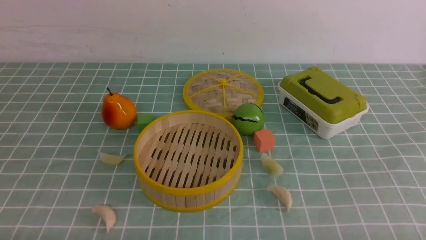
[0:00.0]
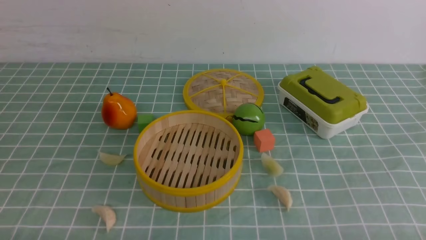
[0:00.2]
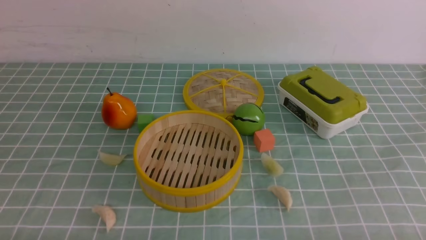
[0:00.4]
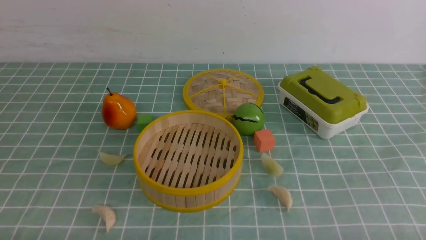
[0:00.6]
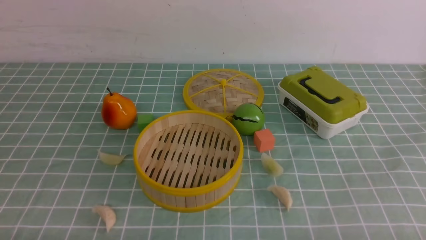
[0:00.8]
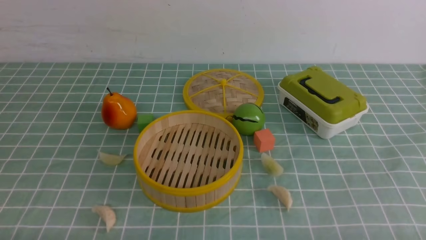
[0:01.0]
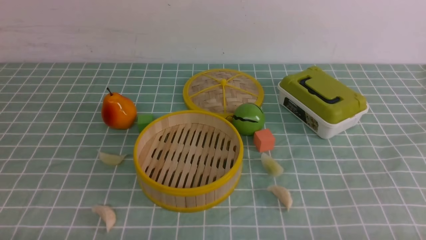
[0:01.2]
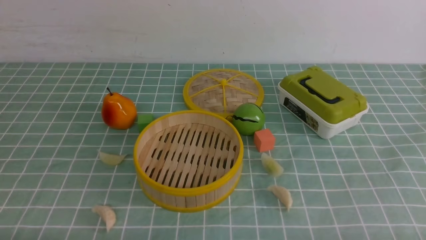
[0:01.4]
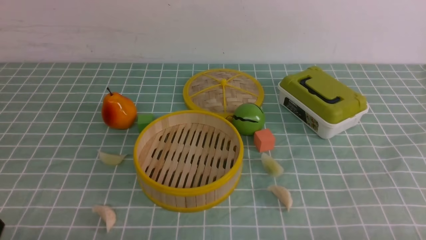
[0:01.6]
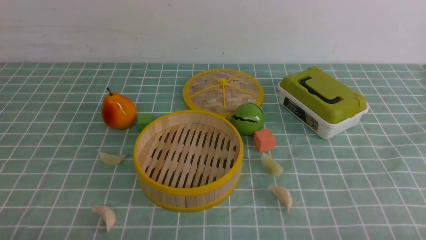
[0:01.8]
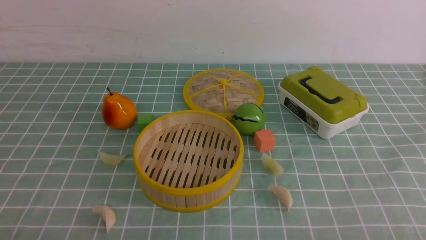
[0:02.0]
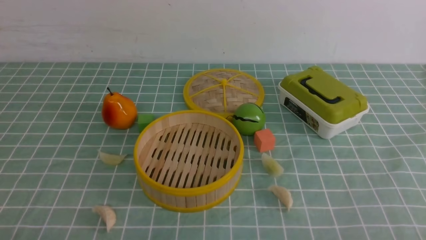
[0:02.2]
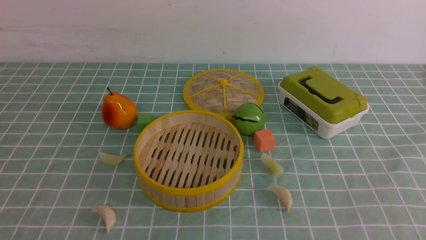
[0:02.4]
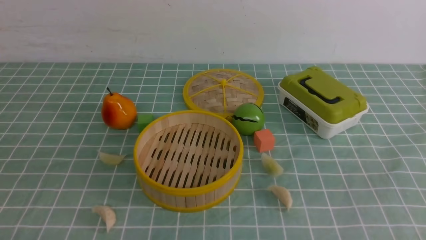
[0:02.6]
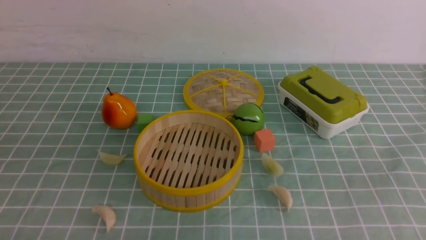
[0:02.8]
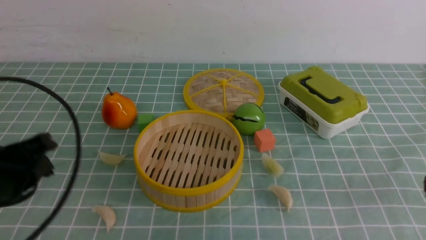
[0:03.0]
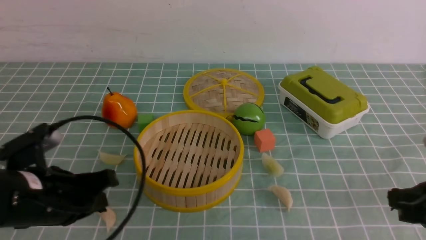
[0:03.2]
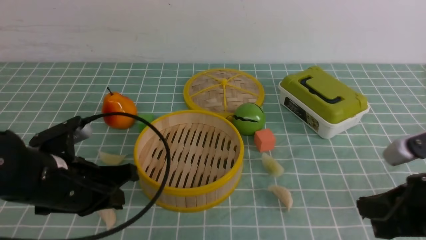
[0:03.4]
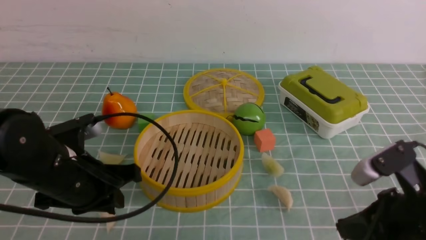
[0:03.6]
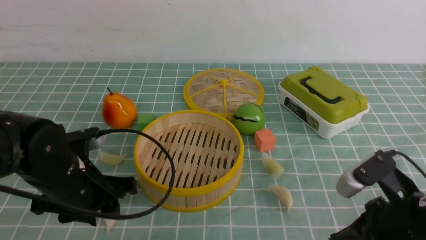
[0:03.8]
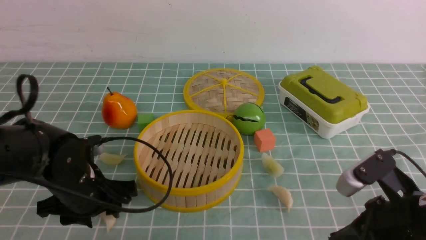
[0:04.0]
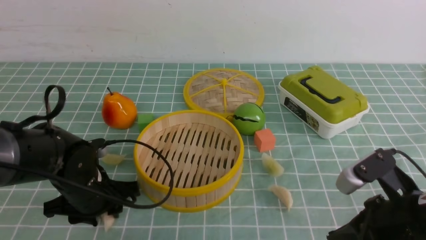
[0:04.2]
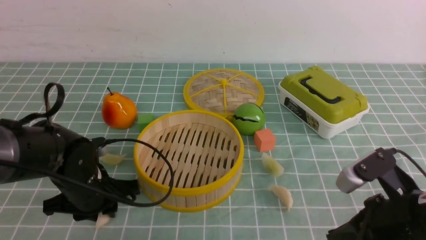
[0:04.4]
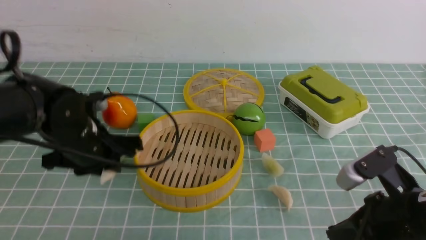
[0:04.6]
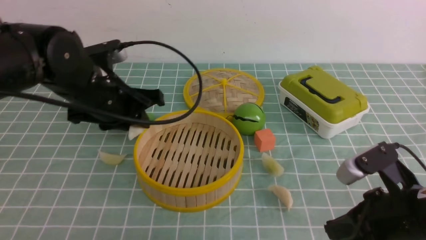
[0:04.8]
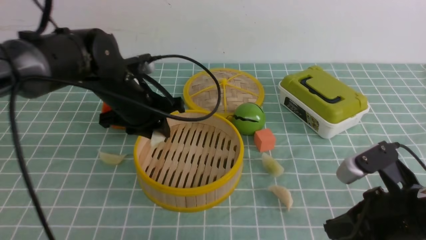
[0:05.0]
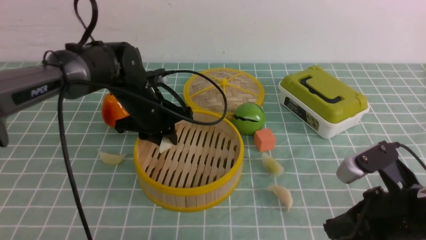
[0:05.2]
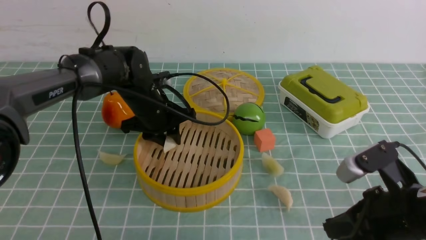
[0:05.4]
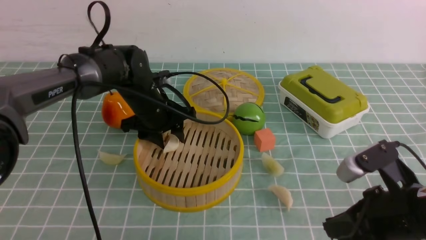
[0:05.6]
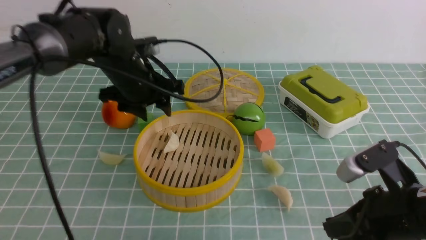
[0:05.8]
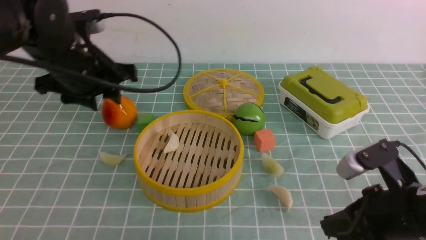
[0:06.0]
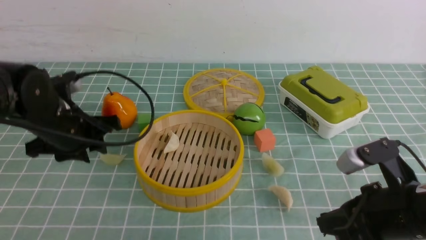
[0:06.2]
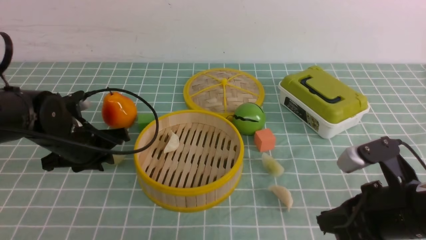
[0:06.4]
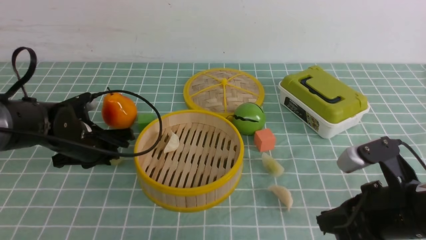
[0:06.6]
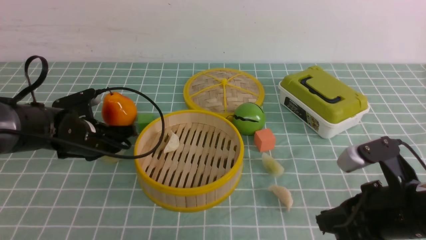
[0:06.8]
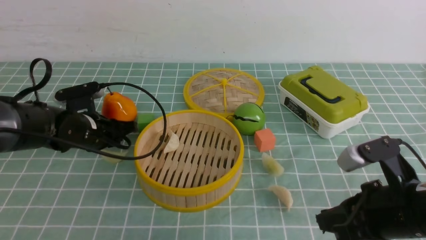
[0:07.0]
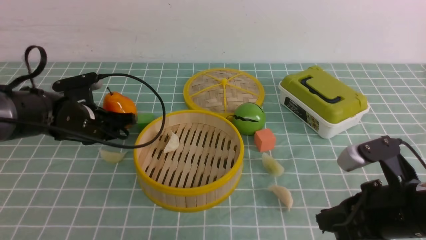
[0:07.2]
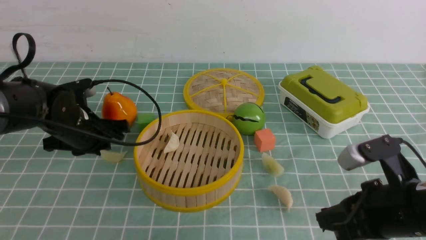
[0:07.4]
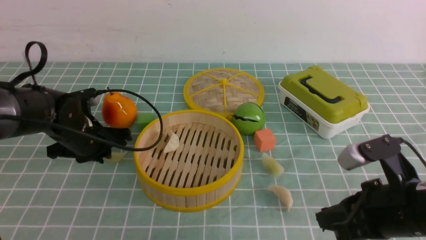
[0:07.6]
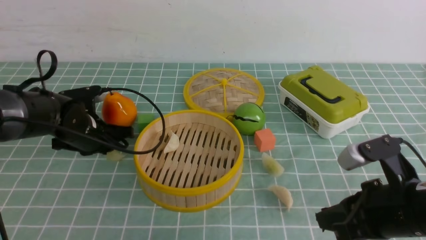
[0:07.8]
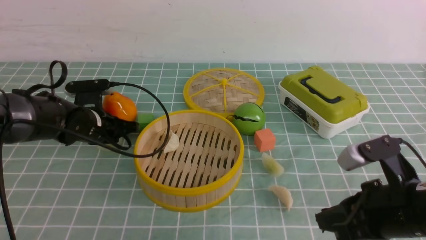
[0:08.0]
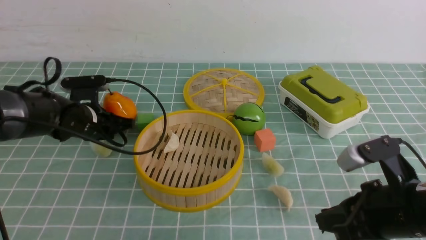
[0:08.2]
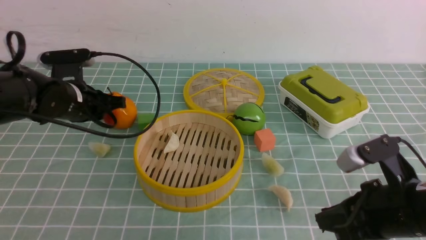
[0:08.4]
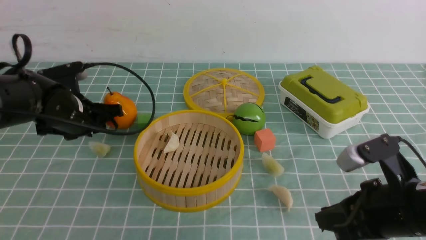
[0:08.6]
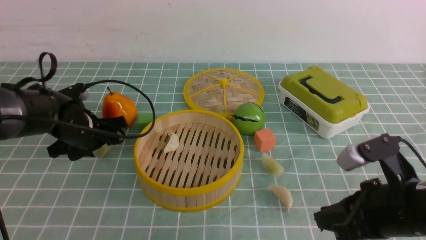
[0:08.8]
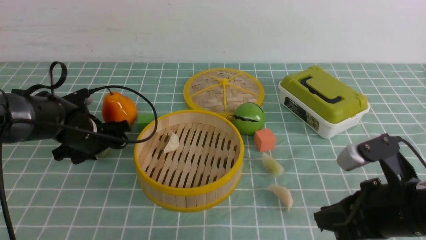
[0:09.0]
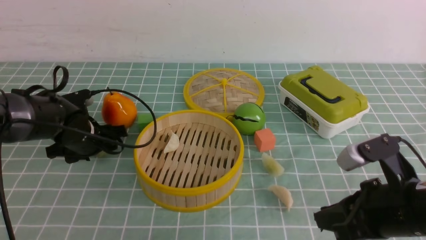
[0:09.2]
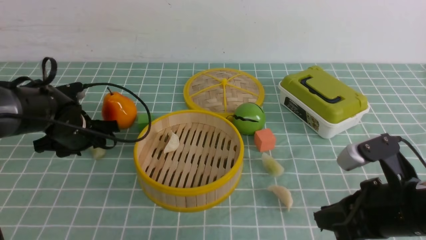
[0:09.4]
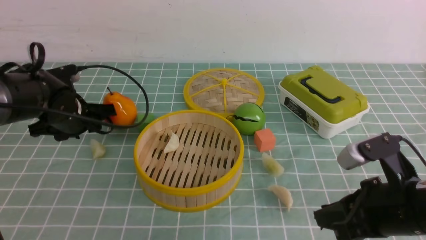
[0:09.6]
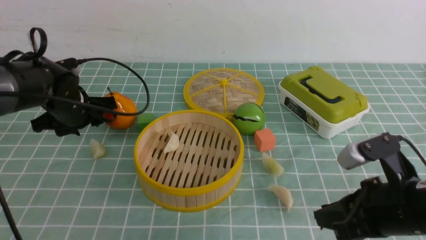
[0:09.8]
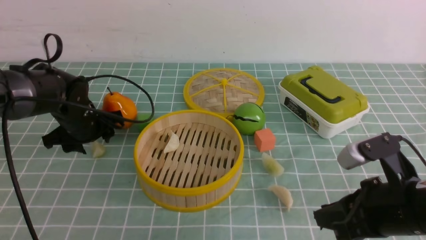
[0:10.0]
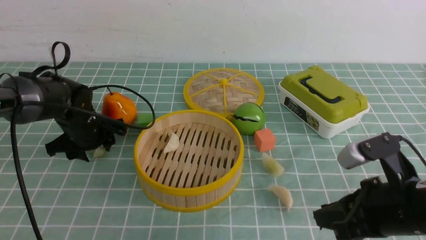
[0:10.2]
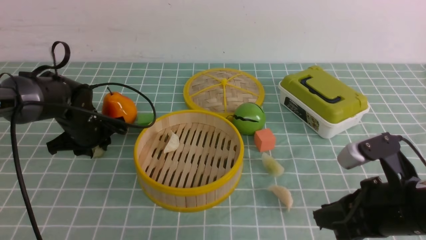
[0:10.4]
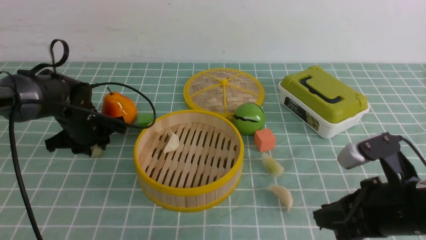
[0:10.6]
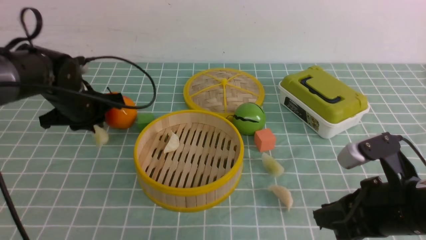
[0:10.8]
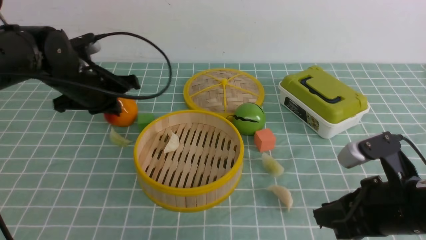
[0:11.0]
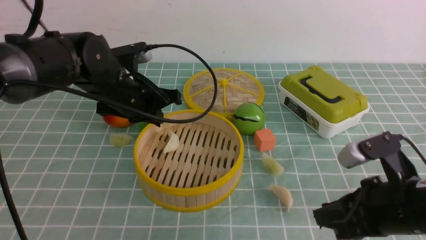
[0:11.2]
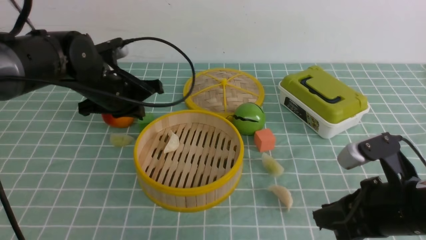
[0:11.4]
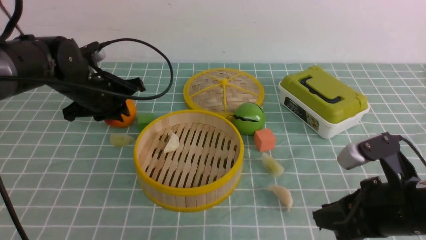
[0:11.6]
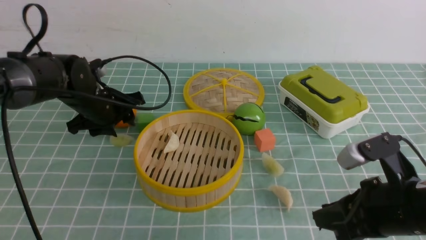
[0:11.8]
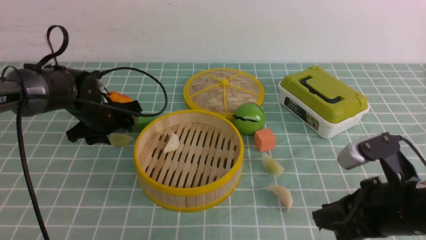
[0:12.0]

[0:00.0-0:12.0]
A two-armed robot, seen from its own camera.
Task of the whole recording: put the dumplings into the steamer on the table with the blue tablecloth.
Step, 0:00.0 to 0:04.4: use the left arm to grab a dumpling.
Step, 0:04.8 to 0:05.4: use the left arm to put the dumpling into the steamer.
0:01.6 to 0:03.0: The left gripper moves forward and upward, some 15 cm, and closes up.
0:03.0 to 0:04.4: The left gripper shifts roughly 15 cm forward, downward and to the right, and opens its fingers; the right gripper is displaced to the left and downward by approximately 10 cm.
0:04.4 to 0:06.0: The left gripper is displaced upward and forward by about 10 cm.
0:06.0 to 0:07.6: The left gripper moves downward, roughly 10 cm, and closes.
0:07.6 to 0:09.0: The left gripper opens its fingers.
0:09.0 to 0:10.4: The left gripper closes up.
0:10.4 to 0:12.0: The left gripper moves roughly 10 cm upward and comes back, and opens up.

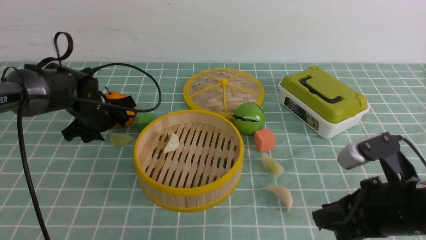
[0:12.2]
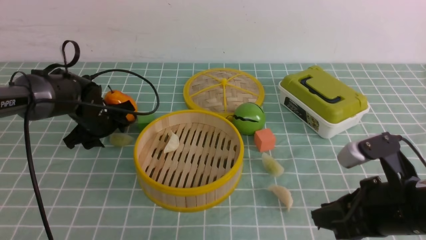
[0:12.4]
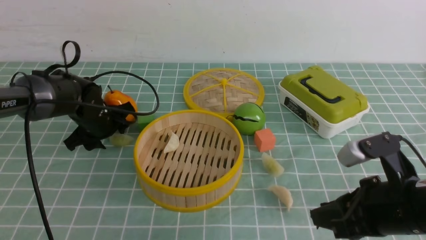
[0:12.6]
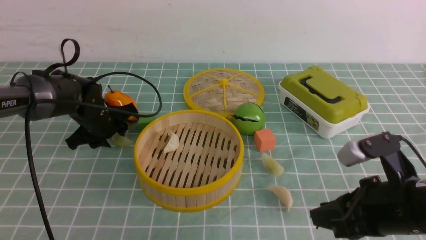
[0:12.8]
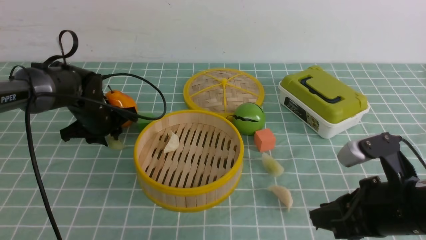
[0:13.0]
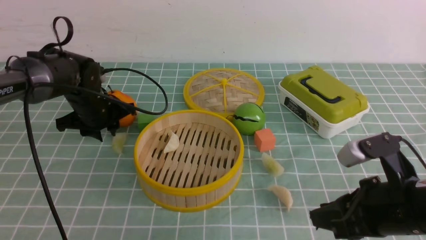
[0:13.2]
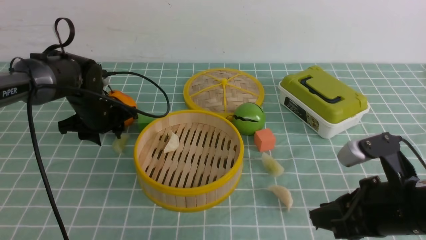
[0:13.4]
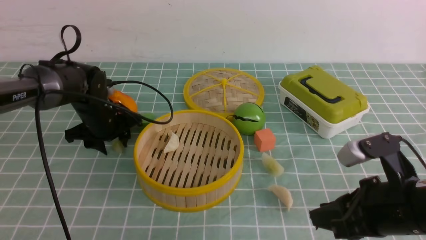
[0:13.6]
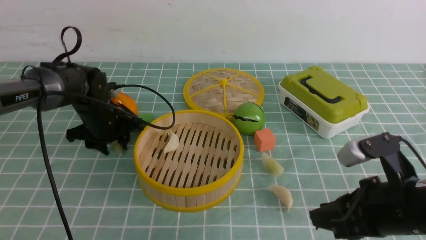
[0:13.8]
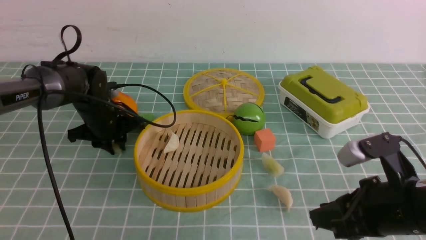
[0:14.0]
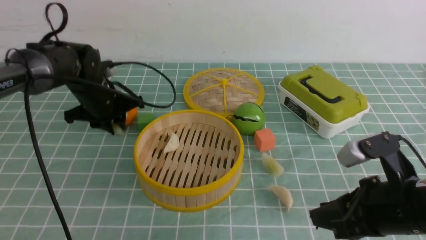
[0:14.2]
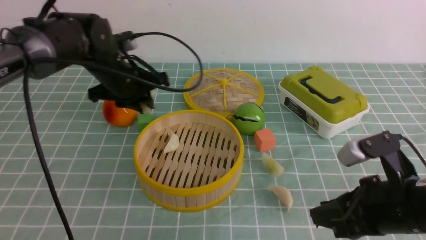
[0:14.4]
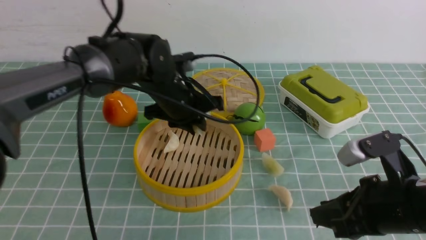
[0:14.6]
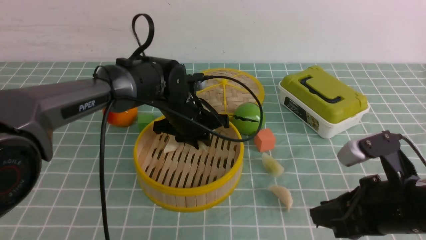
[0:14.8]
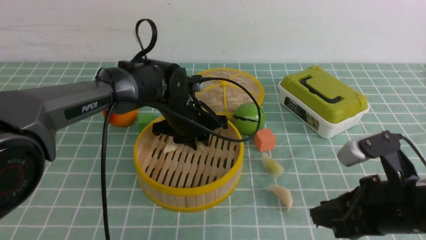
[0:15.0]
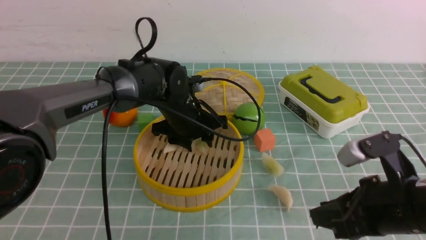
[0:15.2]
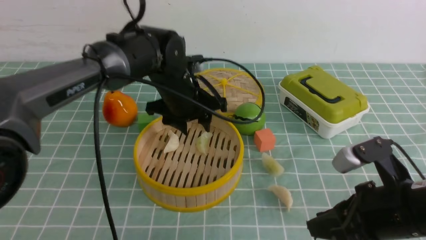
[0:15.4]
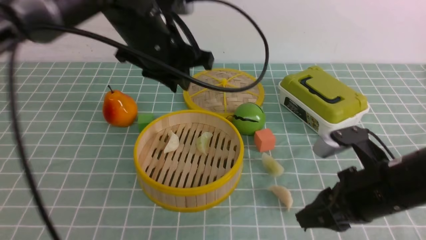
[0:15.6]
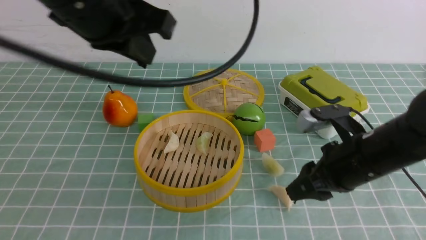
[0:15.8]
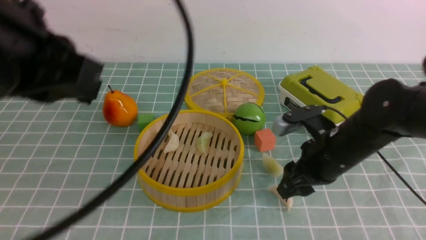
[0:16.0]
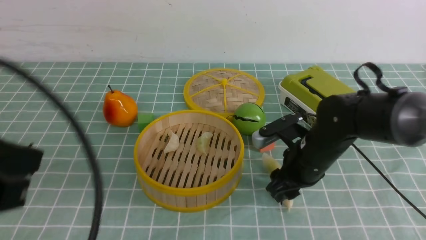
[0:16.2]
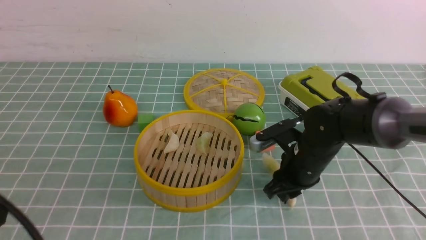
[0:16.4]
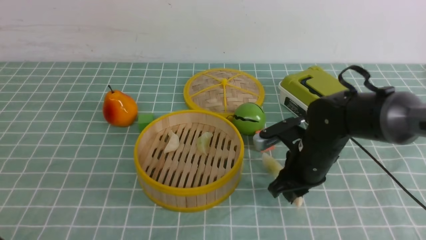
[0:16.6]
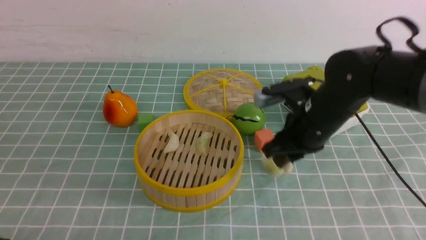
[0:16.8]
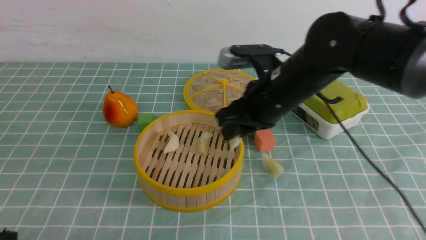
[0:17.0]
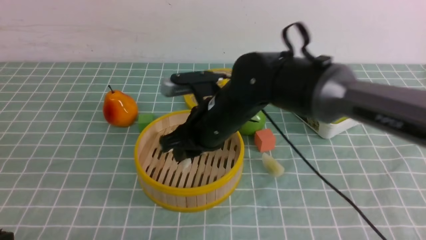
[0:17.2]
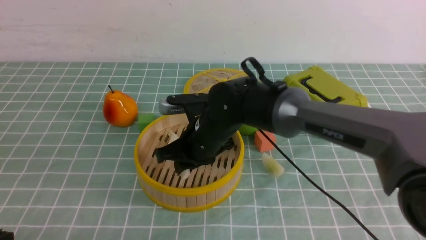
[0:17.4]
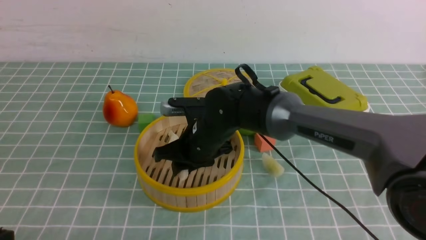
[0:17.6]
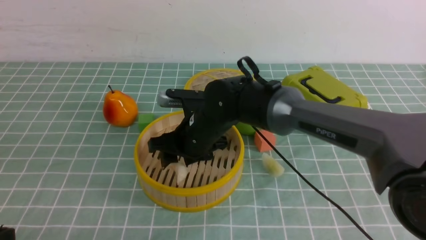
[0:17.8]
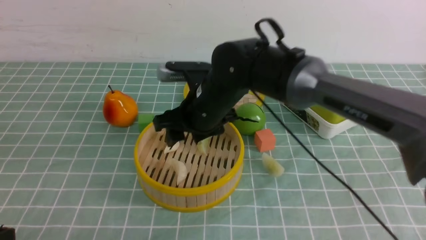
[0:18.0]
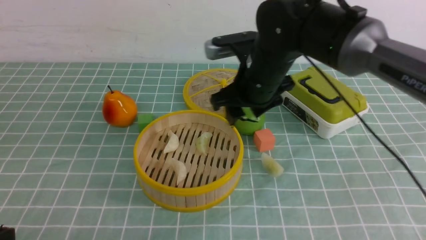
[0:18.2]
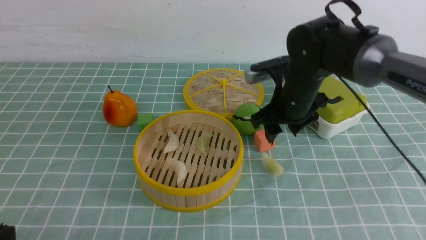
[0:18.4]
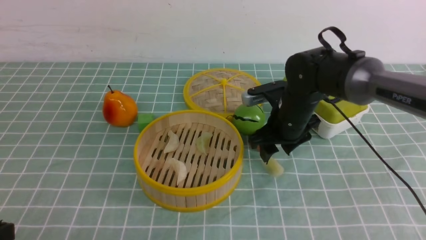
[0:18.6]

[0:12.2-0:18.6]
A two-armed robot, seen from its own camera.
Task of the whole recording: put the dumplings into the steamer on the table with the blue tablecloth.
Step, 0:12.2 to 0:14.2: use the left arm to grab a dumpling.
Step, 0:14.4 to 0:15.4: use the left arm to put the dumpling into the steamer.
Step, 0:15.6 to 0:16.2: use the right arm to grab a dumpling.
Step, 0:16.4 to 0:18.0: use the right arm to put the dumpling into the steamer.
0:13.8 to 0:15.4: The left gripper travels to the right and upward by about 20 cm.
0:15.4 to 0:17.0: The left gripper shifts some 40 cm backward and to the left, and closes its fingers; the right gripper moves to the left and forward, about 20 cm.
0:17.0 to 0:18.6: The right gripper moves downward, forward and to the right, roughly 10 cm, and opens up.
